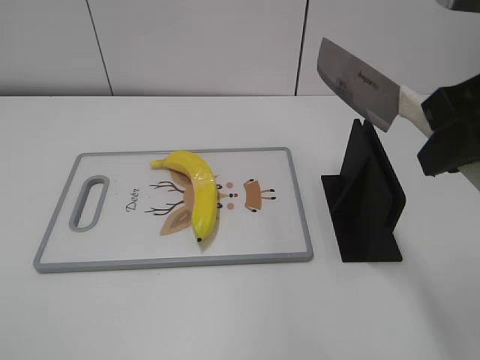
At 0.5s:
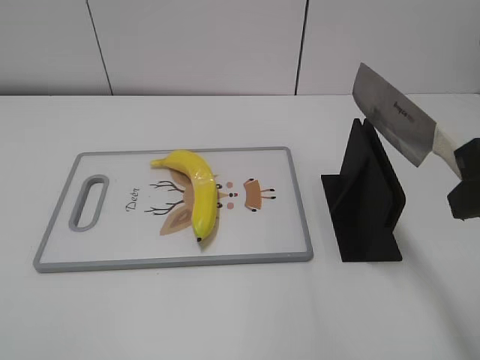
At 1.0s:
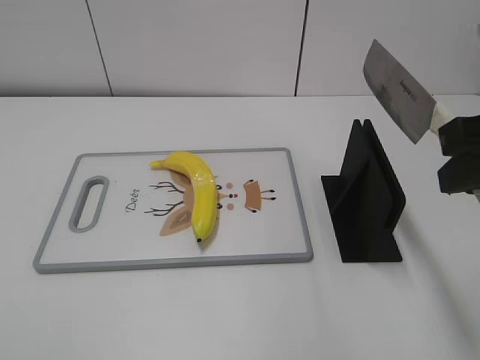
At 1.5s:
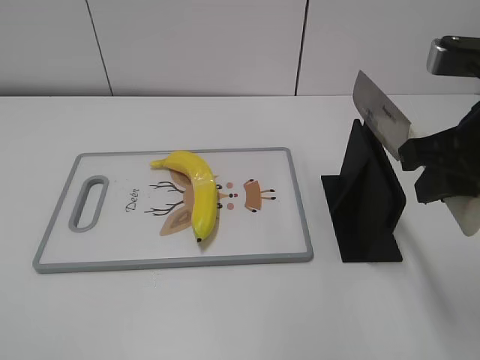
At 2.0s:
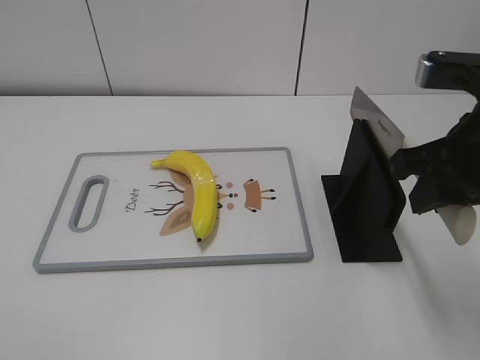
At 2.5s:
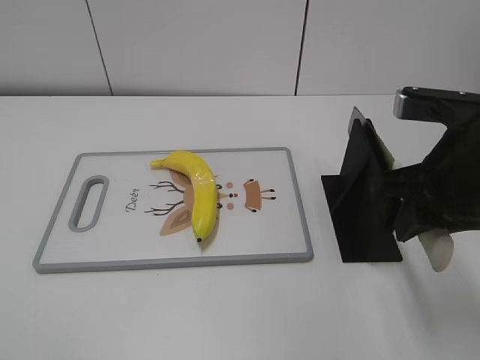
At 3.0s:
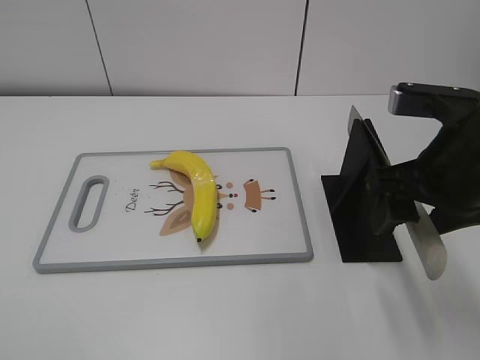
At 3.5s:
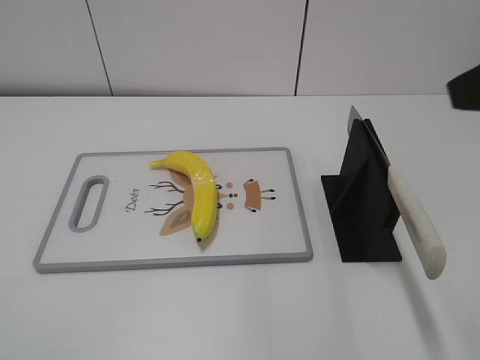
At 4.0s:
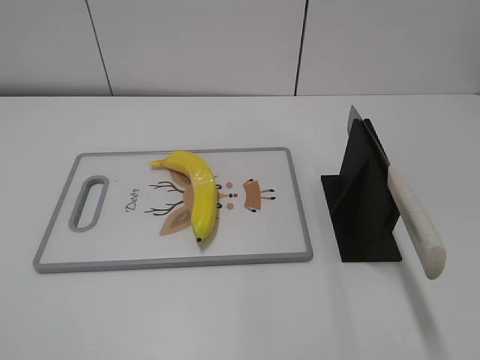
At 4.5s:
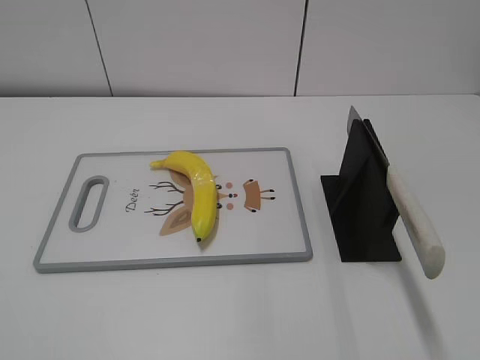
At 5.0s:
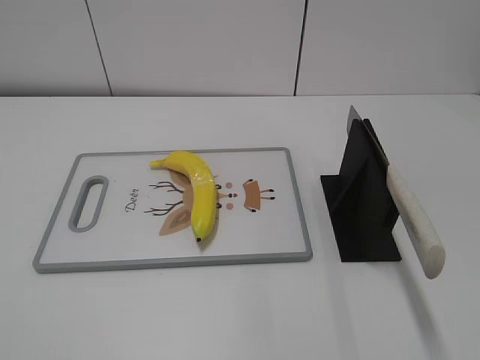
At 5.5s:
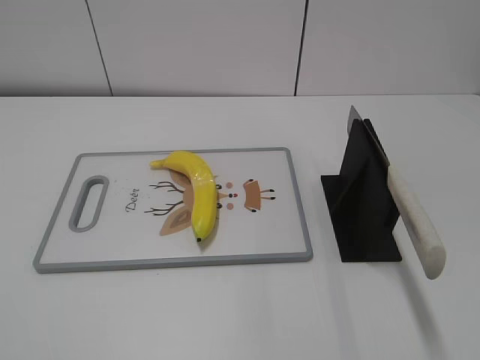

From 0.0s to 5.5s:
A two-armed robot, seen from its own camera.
Task of the whole recording: cut plastic banana.
Step, from 0.5s to 5.5s: Place the knife on the storage rack with your right hand.
From 0.0s to 2.0s: The right gripper heads downward, covering roughly 5 cm.
From 2.0s to 3.5s: The right gripper goes roughly 10 cm upward and backward, and opens up.
From 3.5s to 5.5s: The right gripper travels backward and to the right by some 20 cm.

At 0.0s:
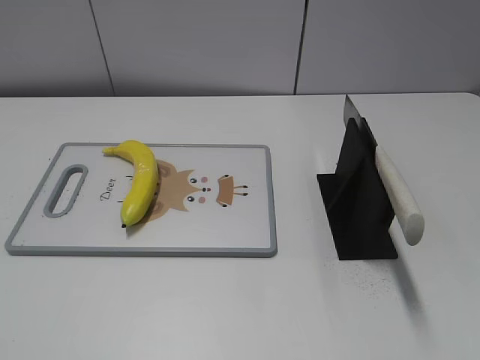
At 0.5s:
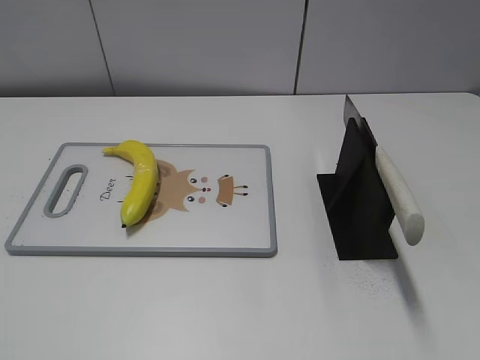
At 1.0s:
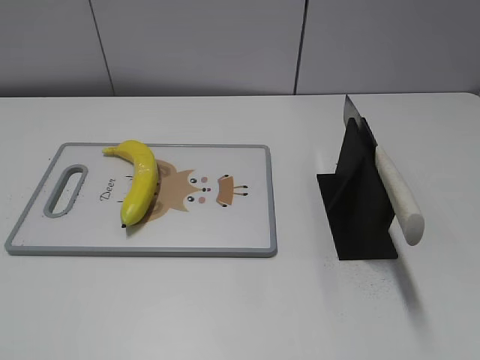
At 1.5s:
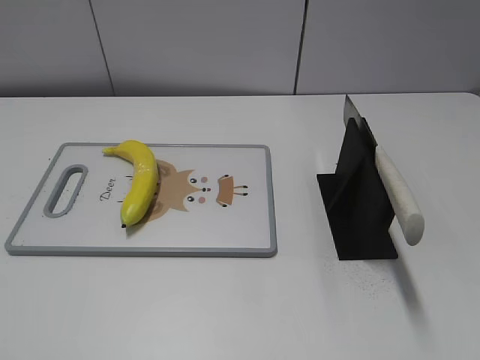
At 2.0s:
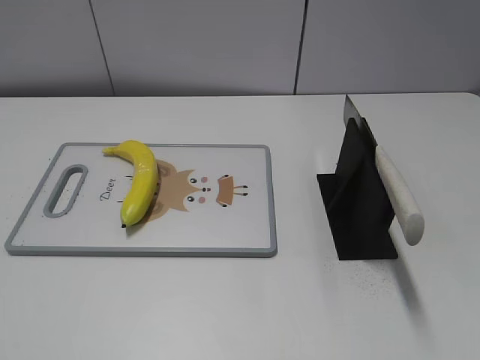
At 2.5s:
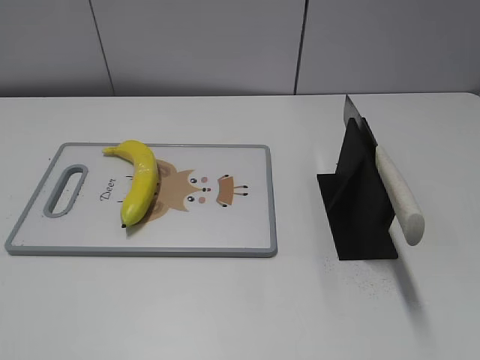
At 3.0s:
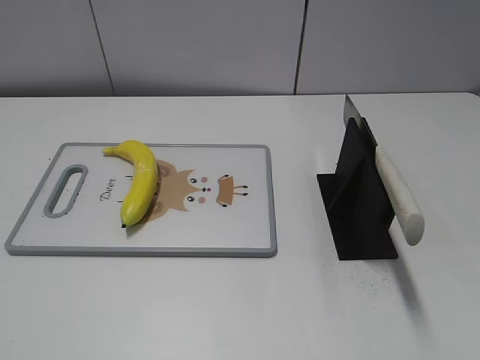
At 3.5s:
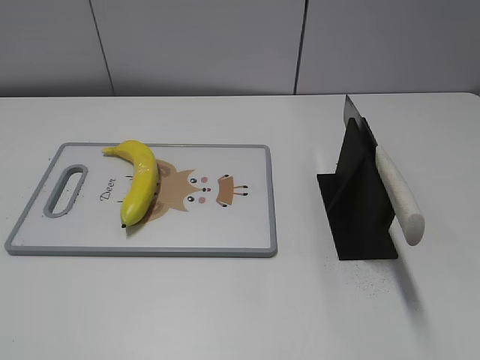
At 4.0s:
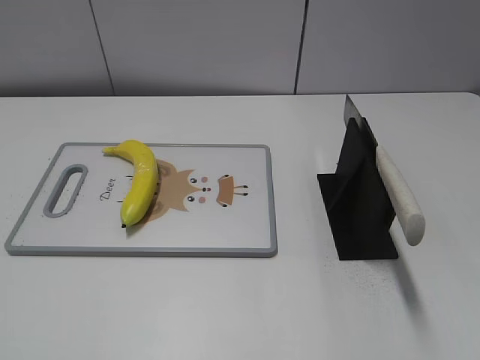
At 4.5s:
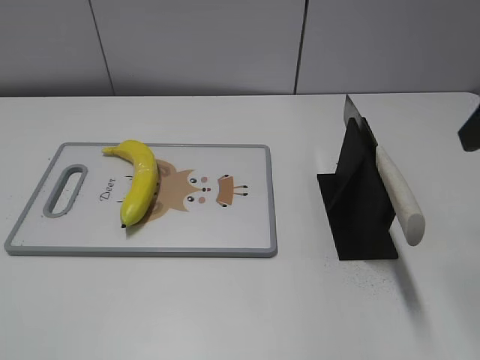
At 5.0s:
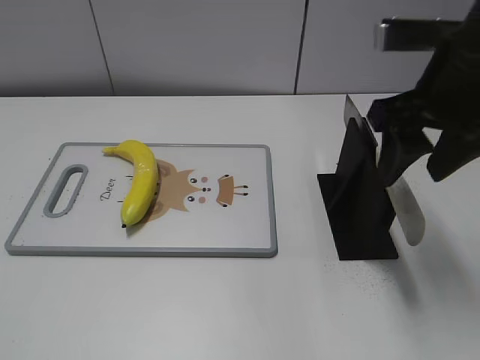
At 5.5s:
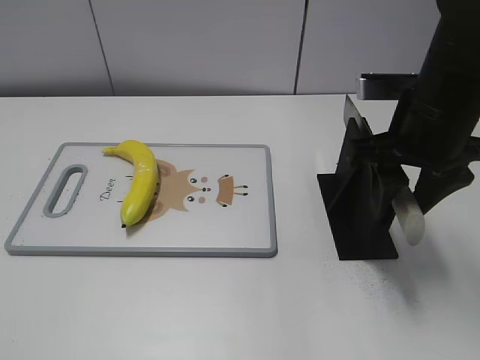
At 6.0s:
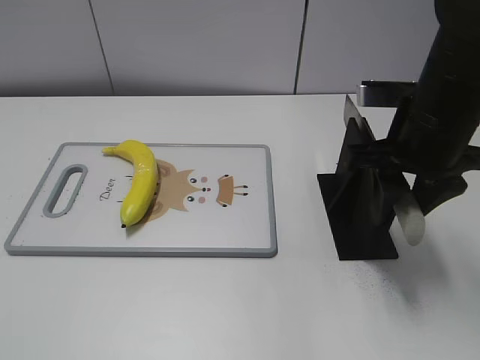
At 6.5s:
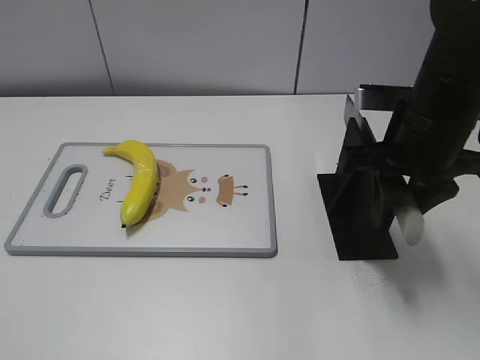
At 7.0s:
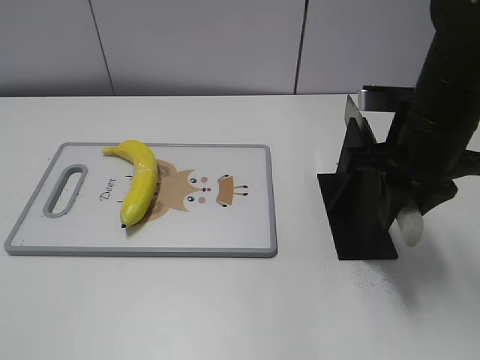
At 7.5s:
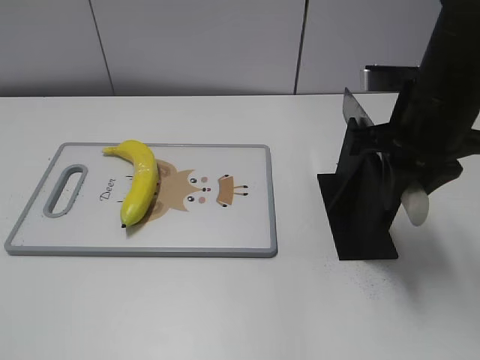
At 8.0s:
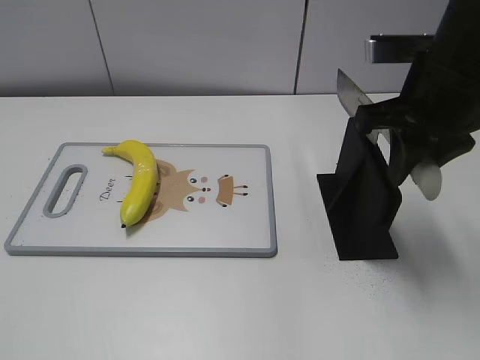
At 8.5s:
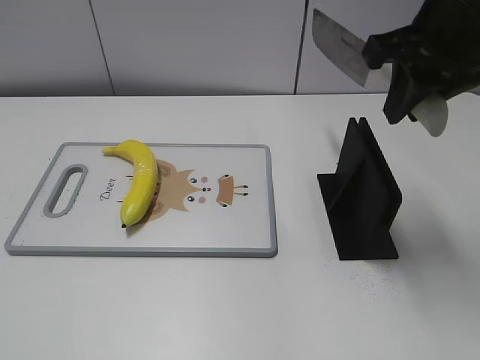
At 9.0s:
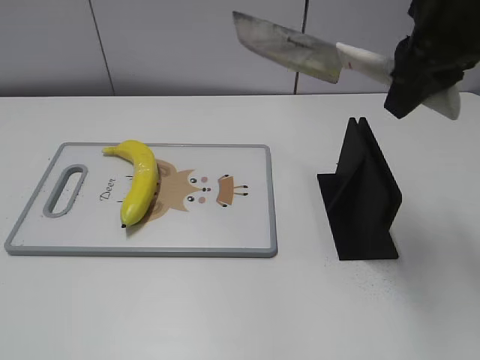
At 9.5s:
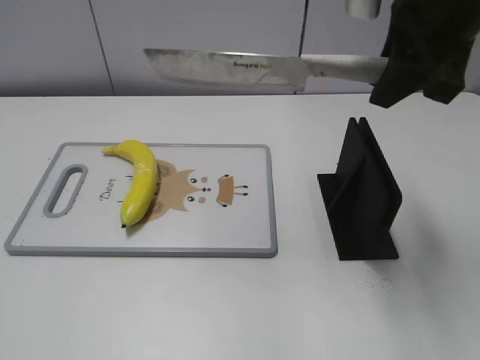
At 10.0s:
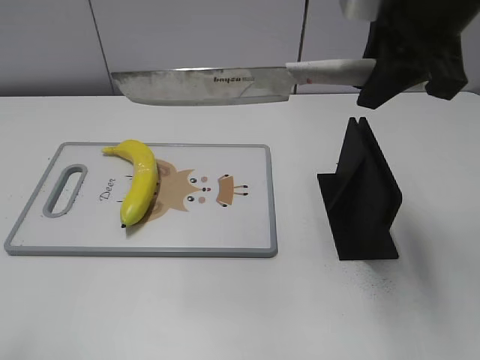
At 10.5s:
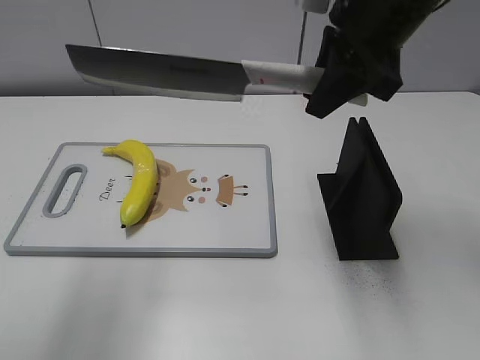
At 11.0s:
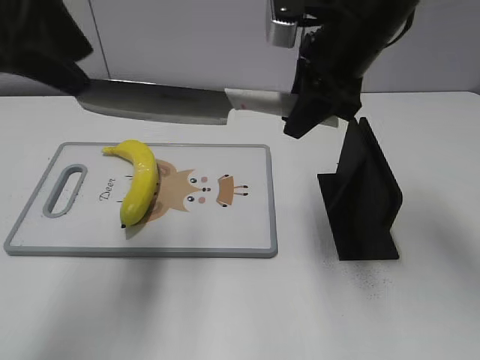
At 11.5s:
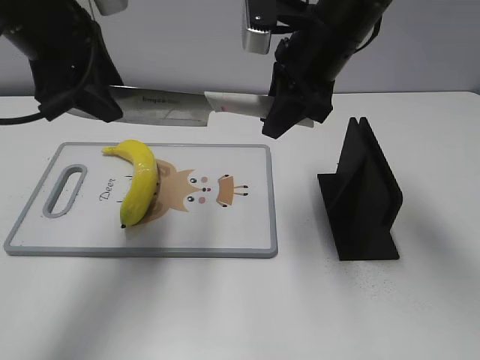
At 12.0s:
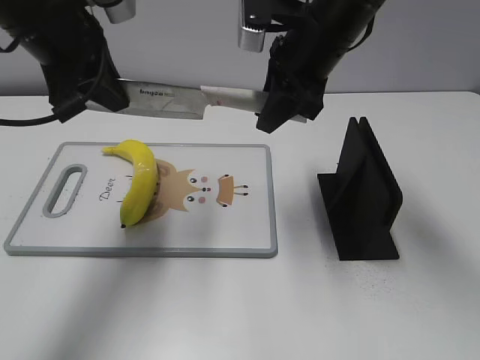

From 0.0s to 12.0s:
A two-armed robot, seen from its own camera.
Task of the whole recording: cut plastic banana.
Step, from 0.0s to 8.5s: Grab the knife handle with your right hand.
From 4.0s to 6.0s: The right gripper heads forward, to the left and downward, covering about 20 cm.
From 6.0s to 8.0s: The right gripper closes up.
From 8.0s to 10.0s: The left gripper moves upward and forward, some 10 cm. Meanwhile the right gripper shifts approximately 5 cm upward.
From 10.0s to 12.0s: The left gripper goes approximately 30 cm forward, and closes up, while the right gripper goes some 15 cm downward, forward and to the left.

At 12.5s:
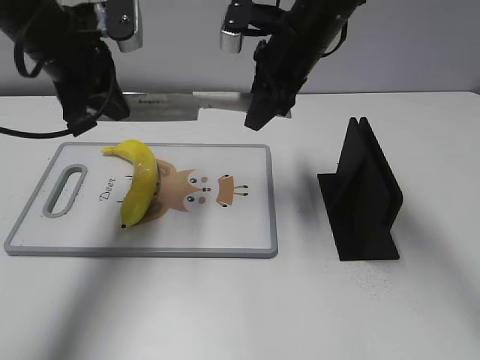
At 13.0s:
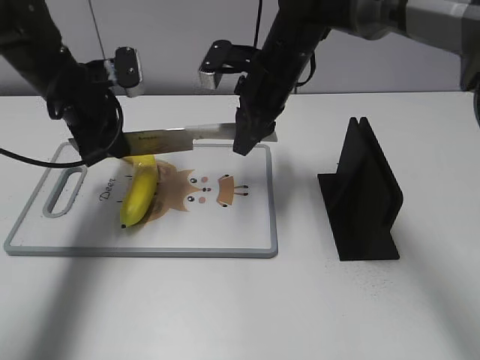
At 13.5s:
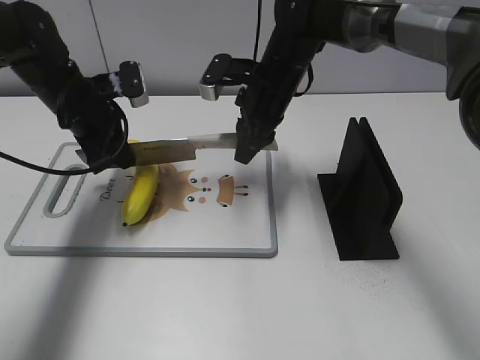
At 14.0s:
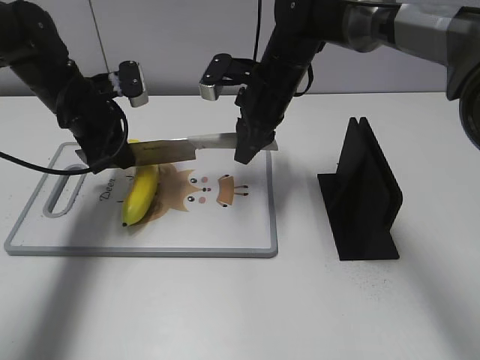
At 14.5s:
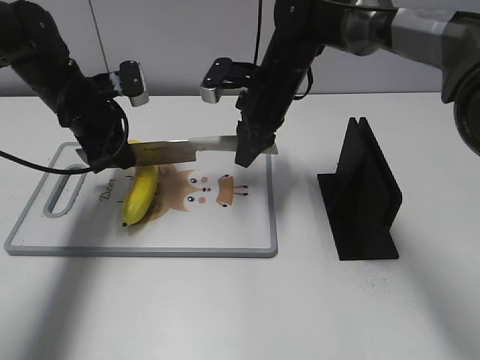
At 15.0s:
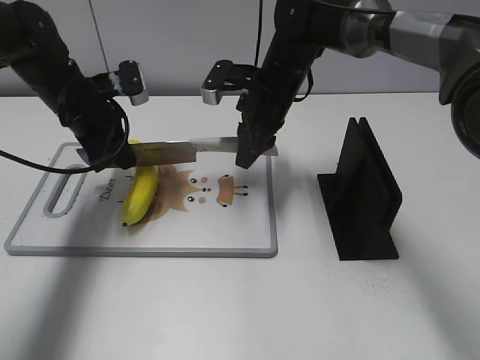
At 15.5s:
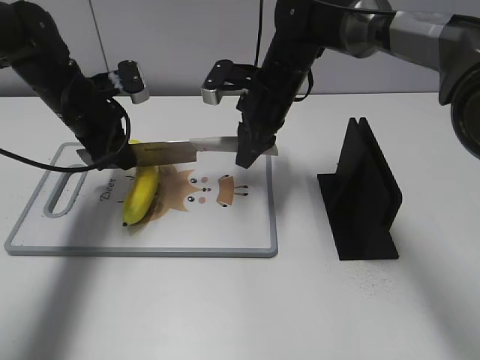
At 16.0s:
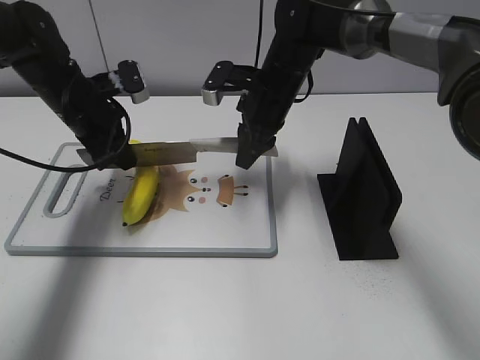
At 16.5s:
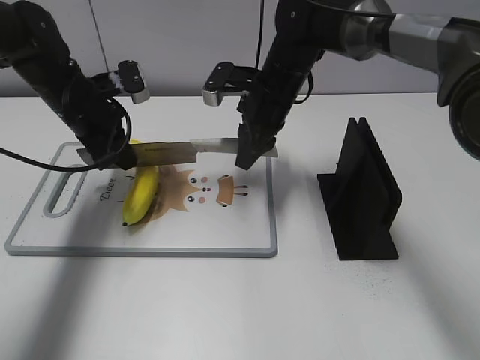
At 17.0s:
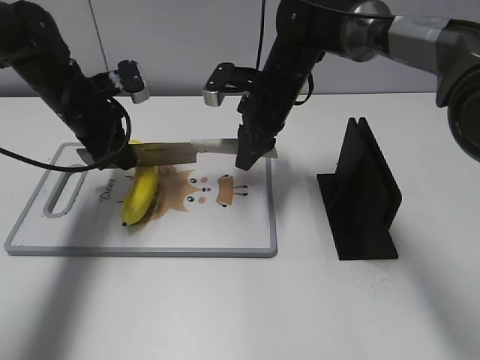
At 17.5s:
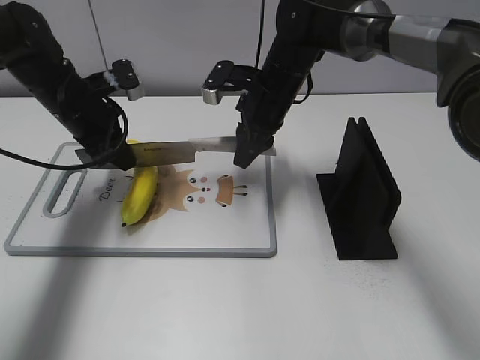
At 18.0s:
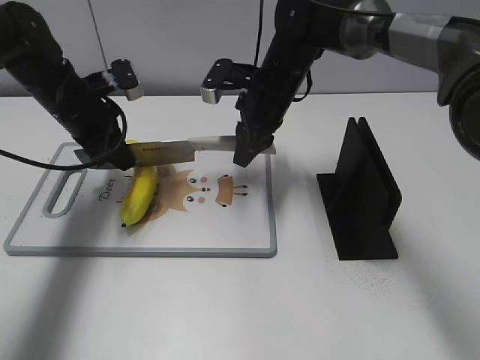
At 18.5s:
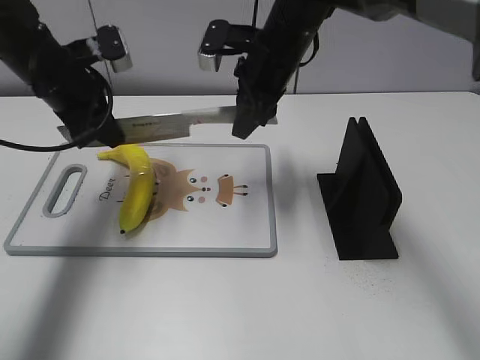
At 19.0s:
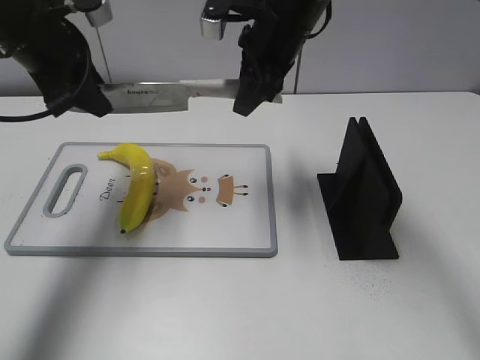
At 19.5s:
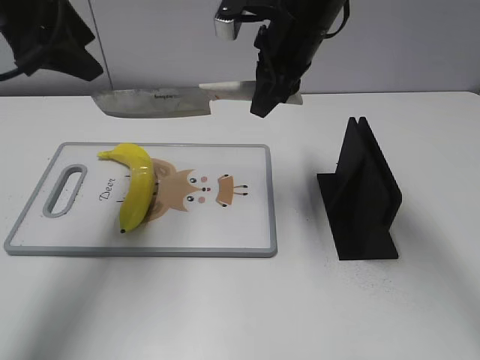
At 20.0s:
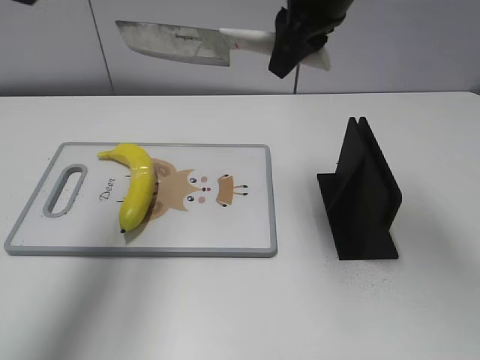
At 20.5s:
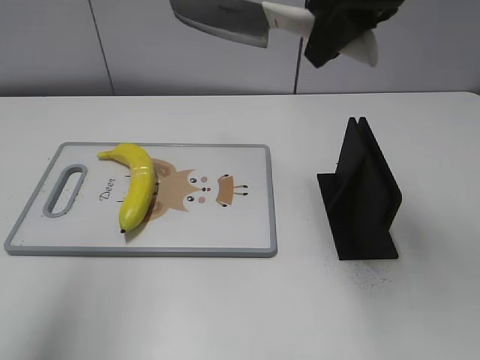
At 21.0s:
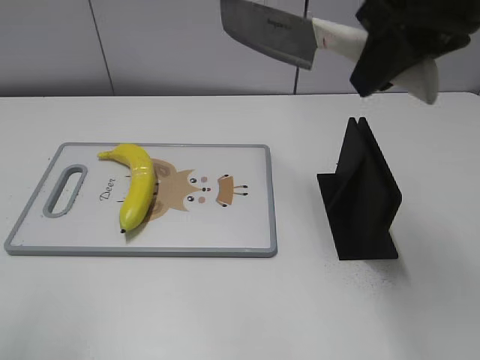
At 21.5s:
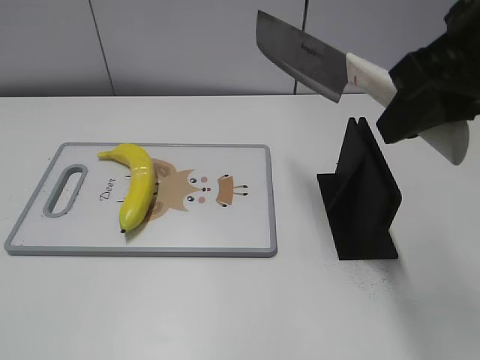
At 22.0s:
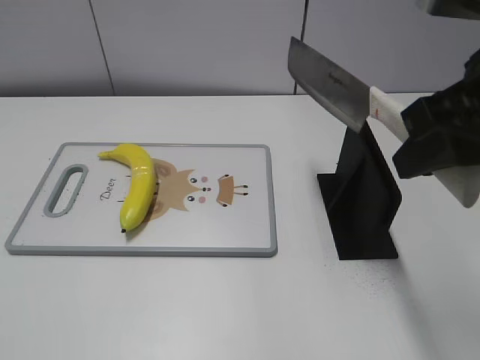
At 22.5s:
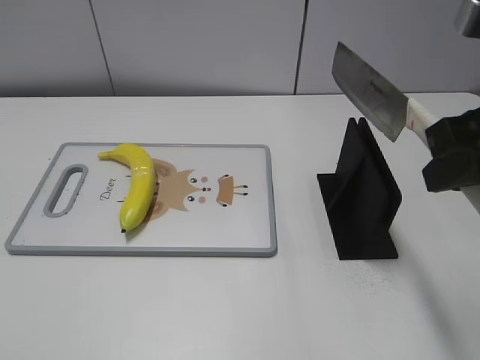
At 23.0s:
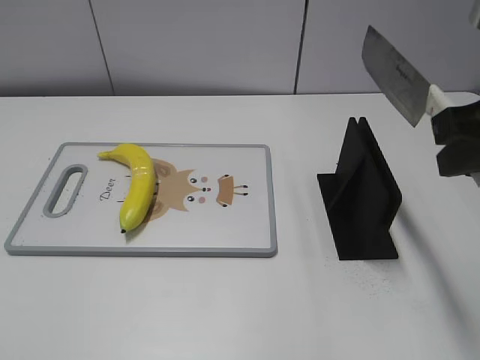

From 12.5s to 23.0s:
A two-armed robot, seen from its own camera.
Task of the whole recording: cut plastic banana.
Step, from 12.5s to 15.0s: Secure the blade with your left hand.
Step, from 15.5s to 18.0s: Cut the banana with your left hand.
Step, from 18.5s to 22.5s: Lift the knife with your right hand.
From 12.5s to 14.5s: Both grippers travel together downward, roughly 10 cm.
From 14.5s to 16.5s: The grippers stay close to where they were, moving slightly.
From 16.5s to 19.0s: Both grippers move upward, about 10 cm. The left gripper opens up.
From 19.0s to 21.0s: The left gripper shifts some 30 cm backward and upward, and opens. The right gripper heads backward, upward and to the right, covering roughly 20 cm.
From 21.0s to 23.0s: The right gripper shifts about 10 cm backward, to the right and downward. Meanwhile the left gripper shifts approximately 20 cm downward and backward.
